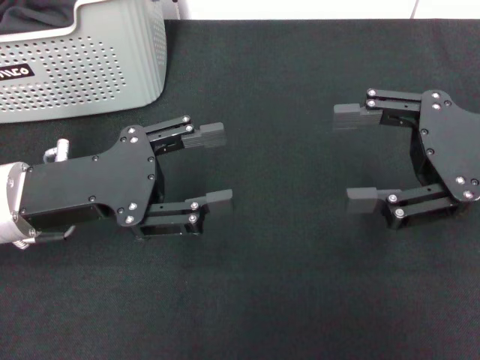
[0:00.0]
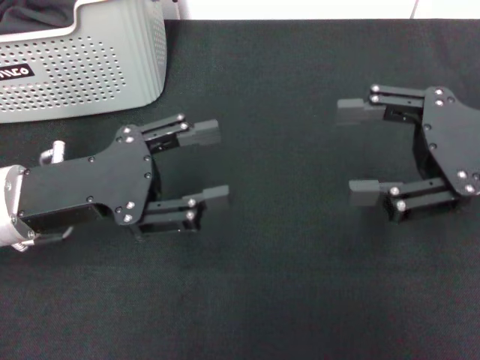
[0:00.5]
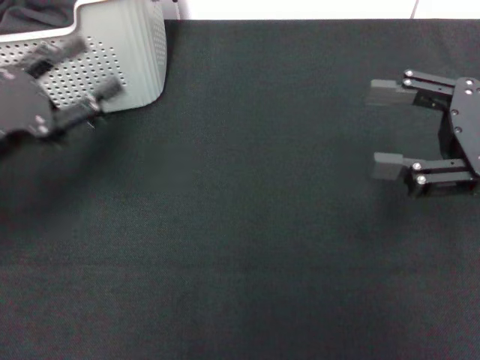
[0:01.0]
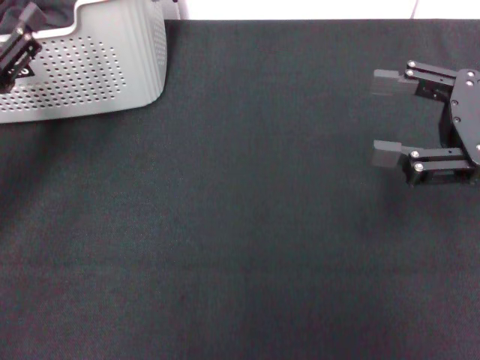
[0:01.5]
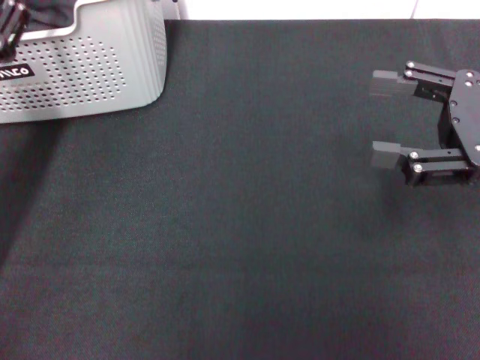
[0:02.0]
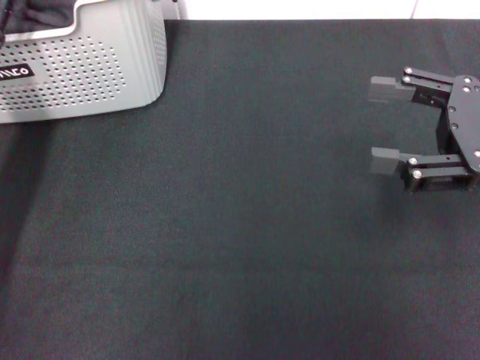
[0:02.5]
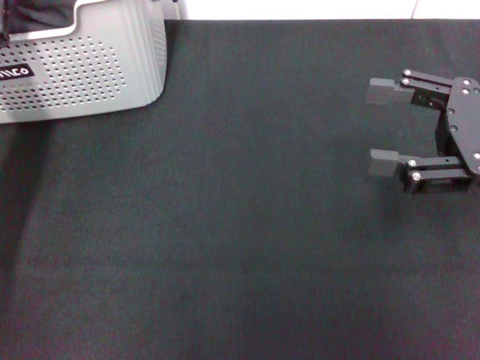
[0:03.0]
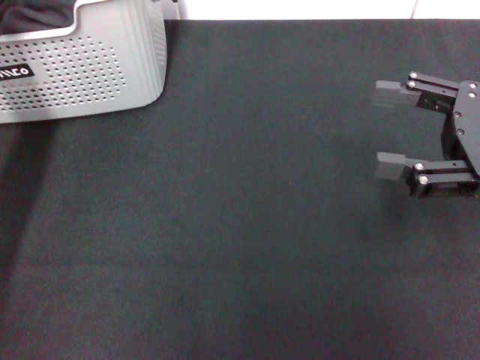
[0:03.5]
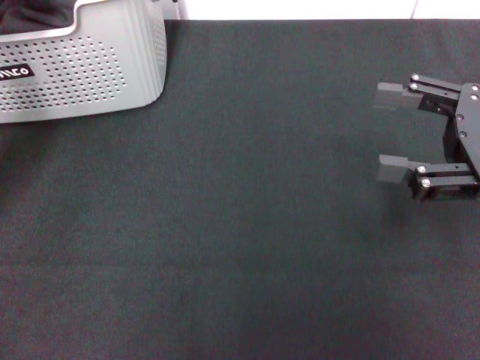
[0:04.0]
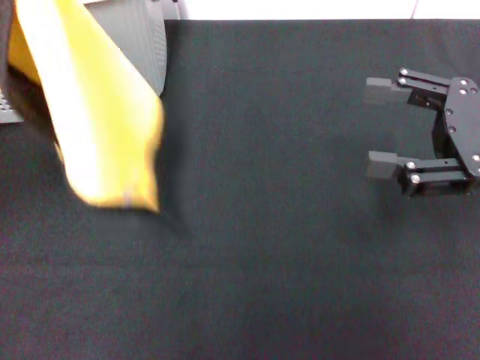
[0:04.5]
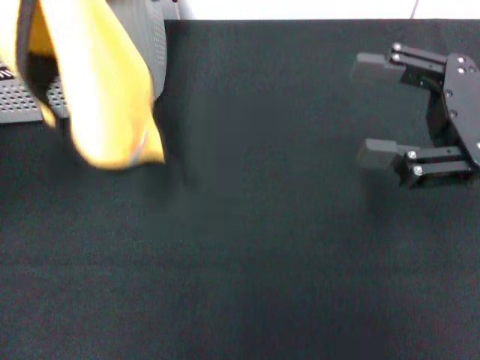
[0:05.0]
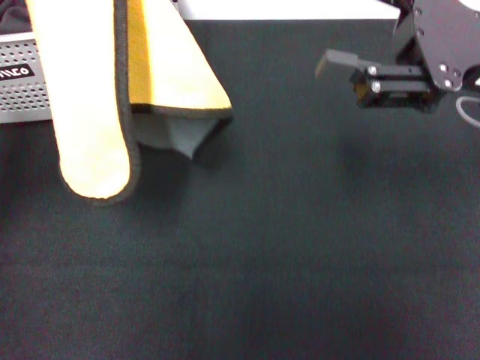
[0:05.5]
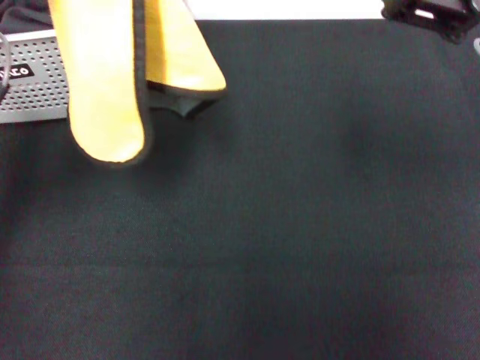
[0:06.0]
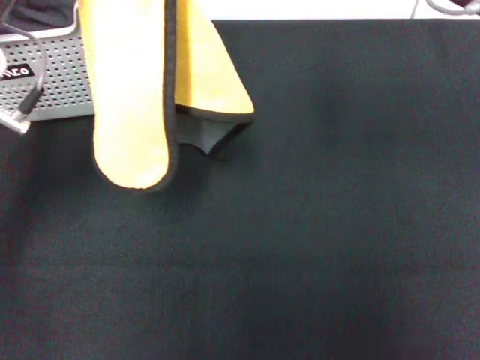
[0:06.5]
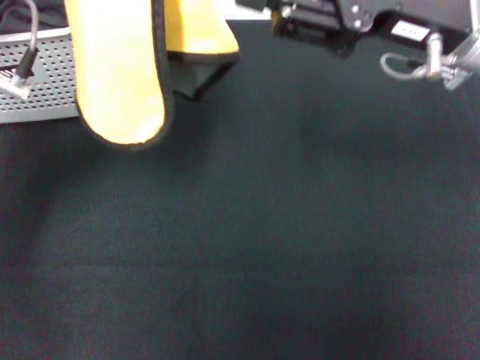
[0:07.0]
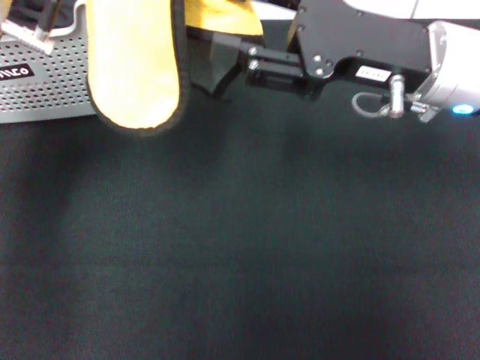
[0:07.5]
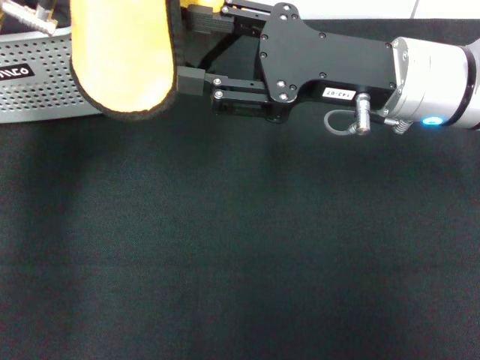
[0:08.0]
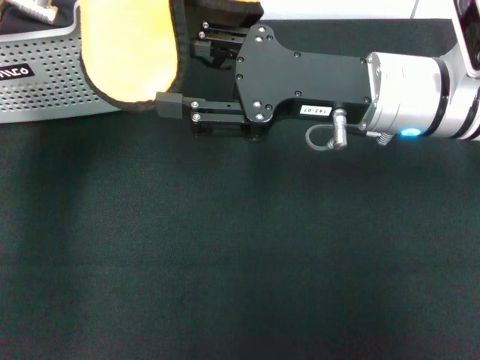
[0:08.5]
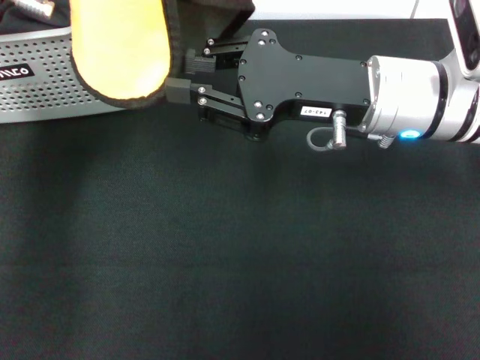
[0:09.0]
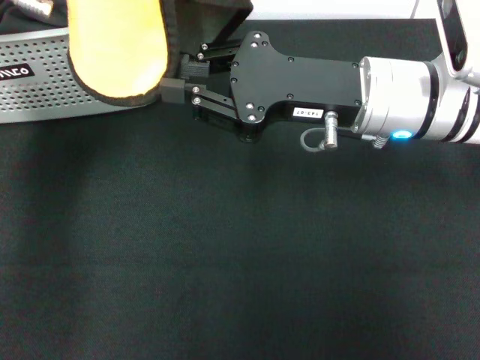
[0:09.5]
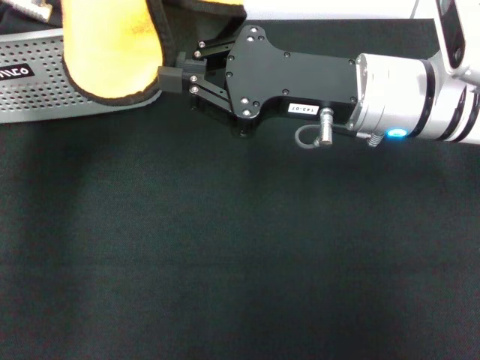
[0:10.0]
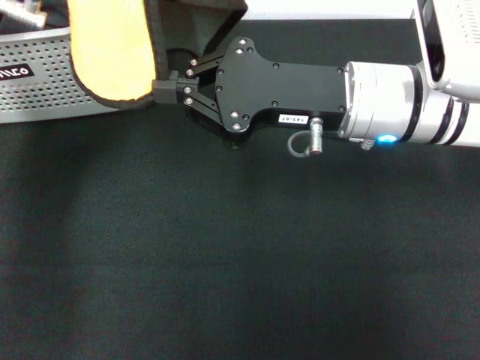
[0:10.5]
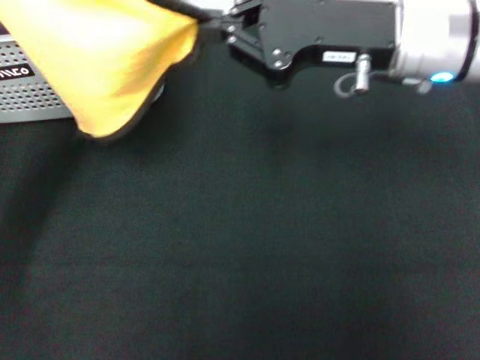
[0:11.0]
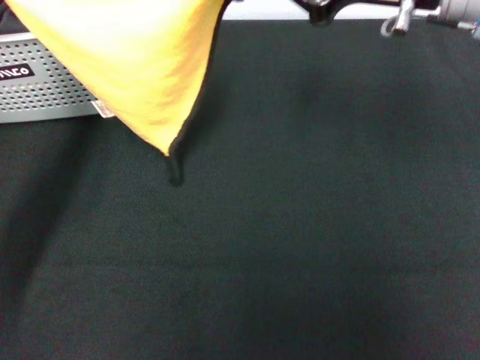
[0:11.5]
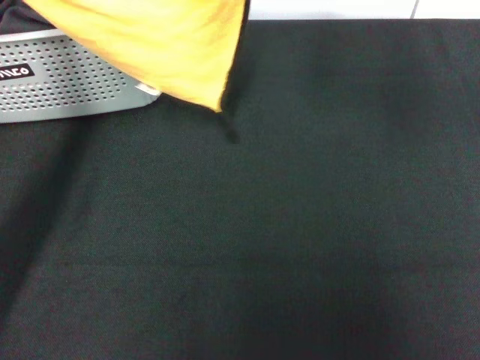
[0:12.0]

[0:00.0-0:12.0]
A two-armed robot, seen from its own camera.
Task of the whole recording: pick up the towel from the storage box and lay it flat on the black tablecloth.
Step, 0:00.0 to 0:03.5: Pick up a towel with the left gripper.
Step, 0:04.0 to 0:10.5: Spread the towel flat with the left gripper.
0:00.0 to 0:02.0: The left gripper goes some 5 cm to the left.
0:02.0 to 0:04.0: The left gripper moves upward, roughly 5 cm, and closes up.
0:04.0 to 0:06.0: The left gripper is displaced to the right by about 5 cm, while the right gripper is displaced upward and to the left by some 10 cm.
0:06.0 to 0:08.0: The left gripper shifts some 5 cm to the right. Meanwhile the right gripper moves to the left and downward, some 10 cm.
0:08.0 to 0:10.0: The right gripper closes its fingers.
0:10.0 to 0:12.0: The right gripper travels upward and to the right by about 15 cm. Meanwhile the left gripper travels downward, backward and to the left by about 15 cm.

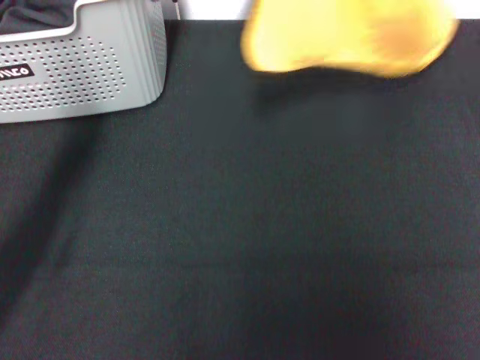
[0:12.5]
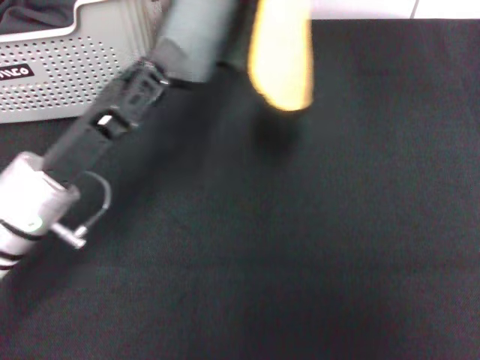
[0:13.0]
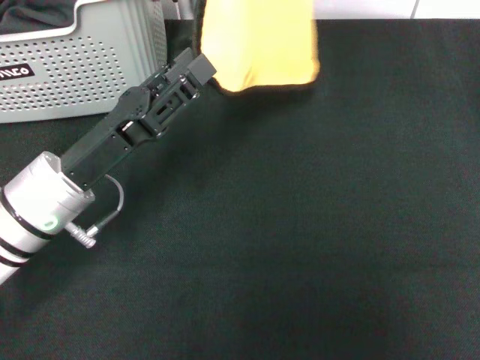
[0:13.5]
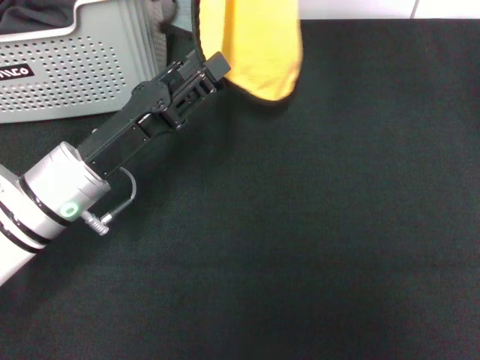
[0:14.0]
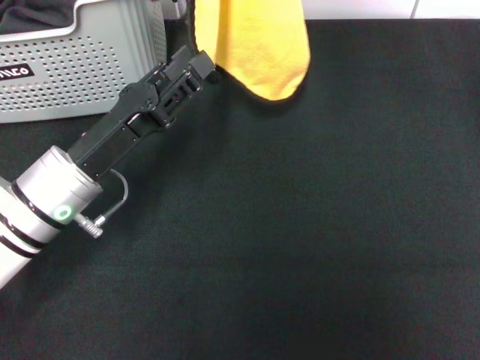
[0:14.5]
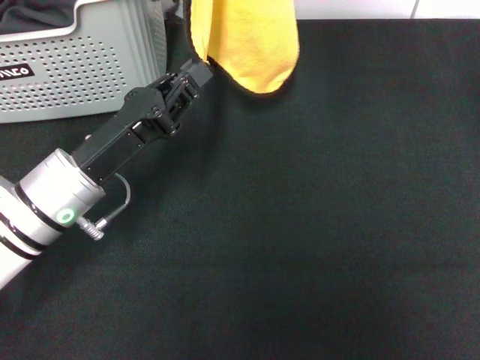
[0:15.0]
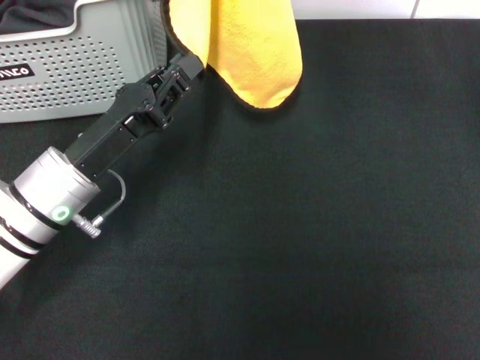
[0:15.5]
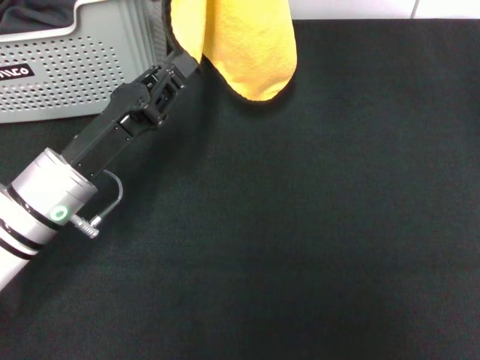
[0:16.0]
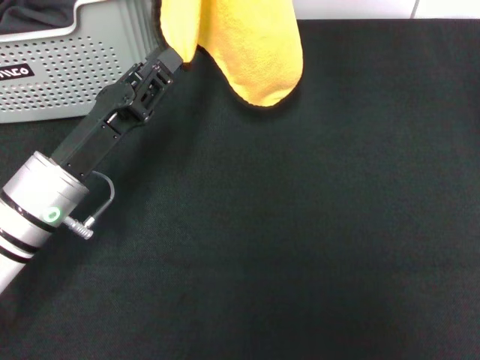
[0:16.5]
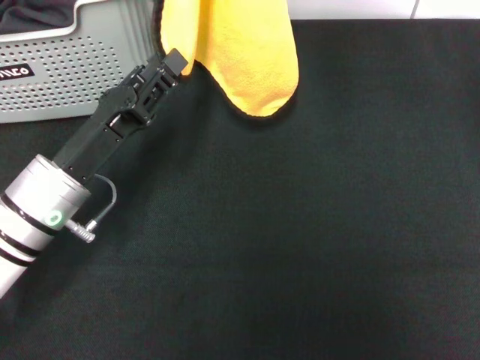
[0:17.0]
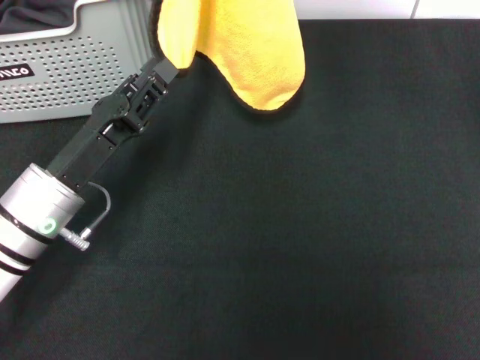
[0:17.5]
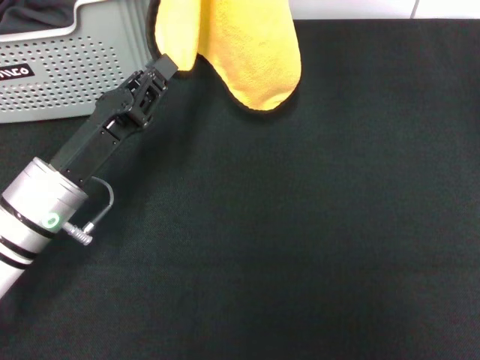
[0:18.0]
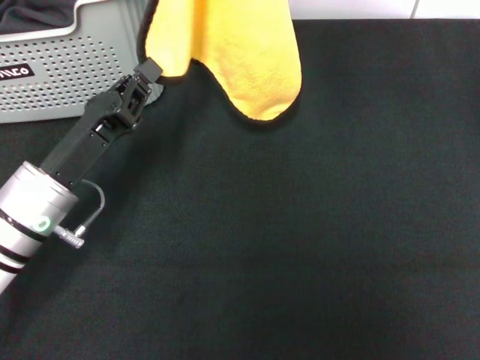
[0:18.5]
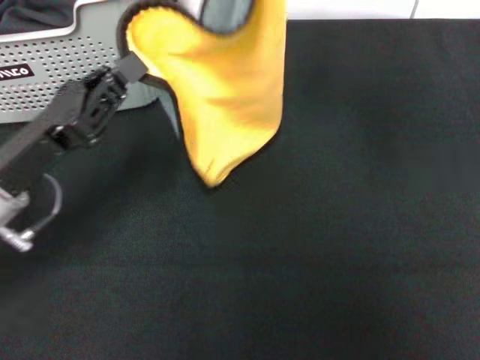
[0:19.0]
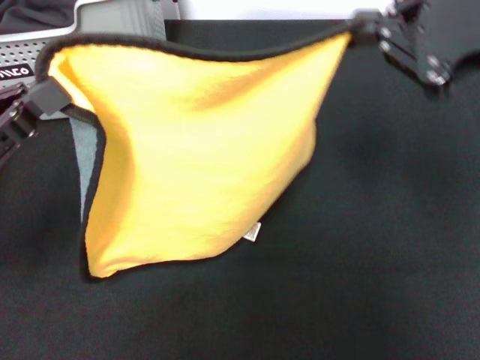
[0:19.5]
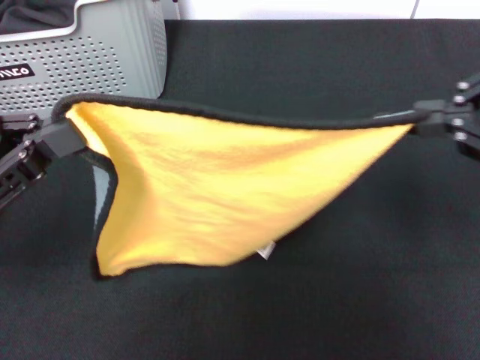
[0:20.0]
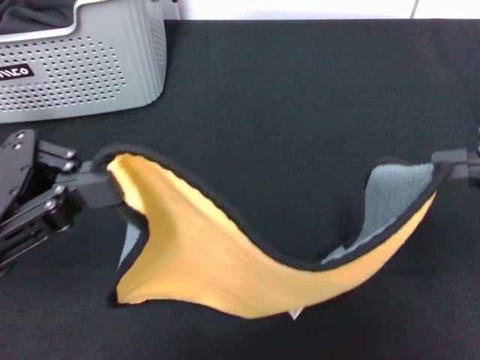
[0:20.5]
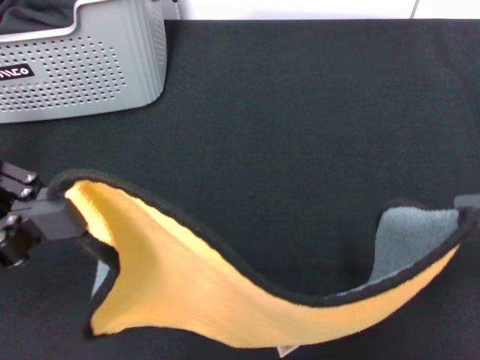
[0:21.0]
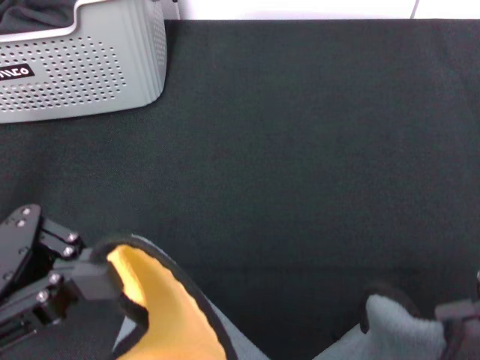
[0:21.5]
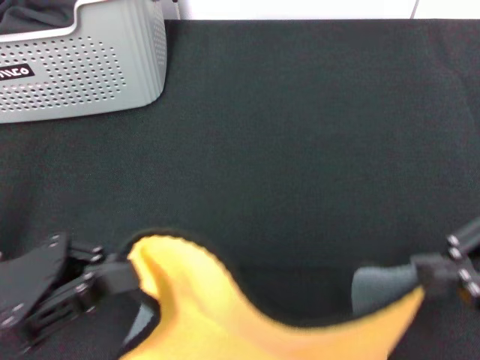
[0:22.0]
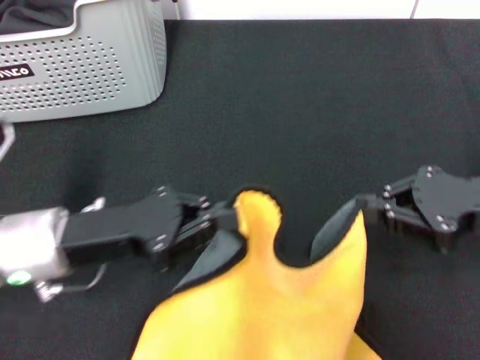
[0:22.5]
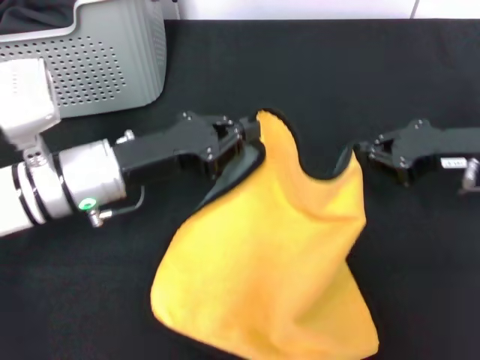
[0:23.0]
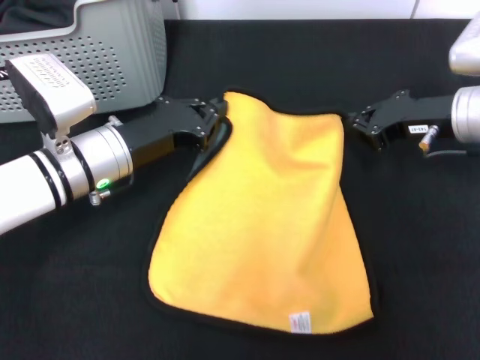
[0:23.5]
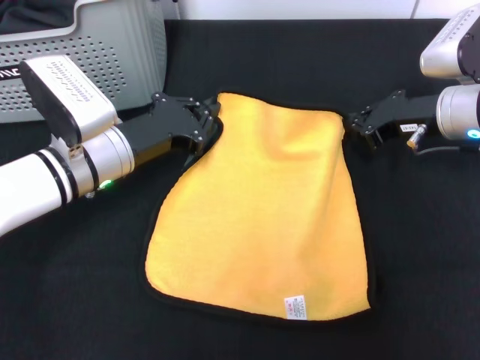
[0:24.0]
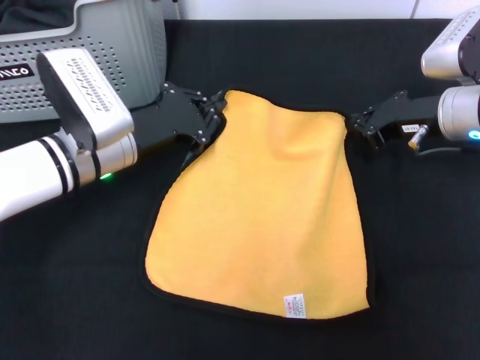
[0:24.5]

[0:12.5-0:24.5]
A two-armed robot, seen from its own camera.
Task of the whole recording: pick up the towel from the storage box and lay it flat on the black tablecloth.
0:12.5 to 0:14.5: The right gripper shifts roughly 5 cm to the left, while the left gripper is displaced to the right and forward by about 10 cm.
0:14.5 to 0:16.5: The left gripper closes, then opens again.
0:16.5 to 0:18.5: The left gripper closes up.
0:18.5 to 0:20.5: The left gripper goes some 15 cm upward, to the left and backward. The right gripper is displaced backward, to the right and downward by approximately 25 cm.
0:20.5 to 0:22.5: The right gripper shifts about 15 cm downward and forward, while the left gripper is displaced downward and to the right by some 10 cm.
0:22.5 to 0:24.5: Both grippers move forward, some 10 cm.

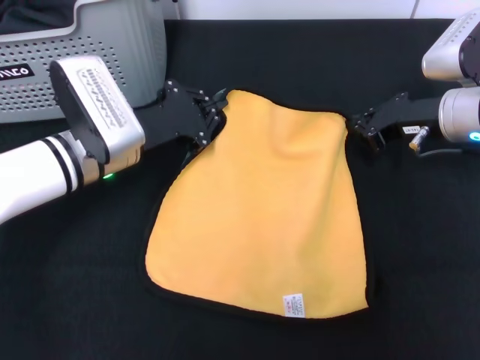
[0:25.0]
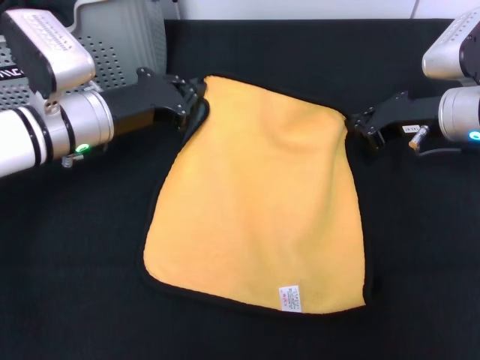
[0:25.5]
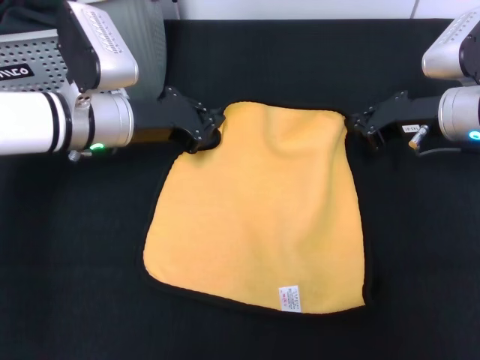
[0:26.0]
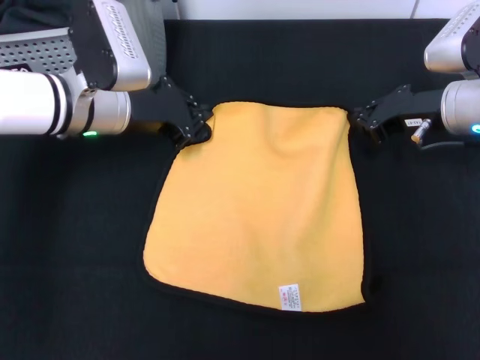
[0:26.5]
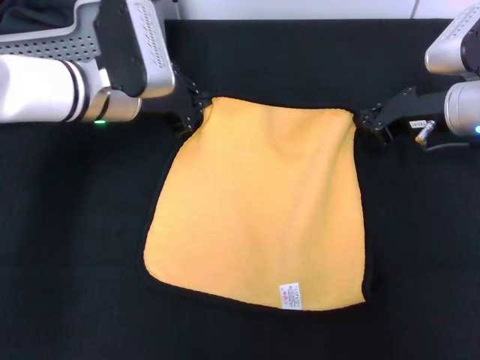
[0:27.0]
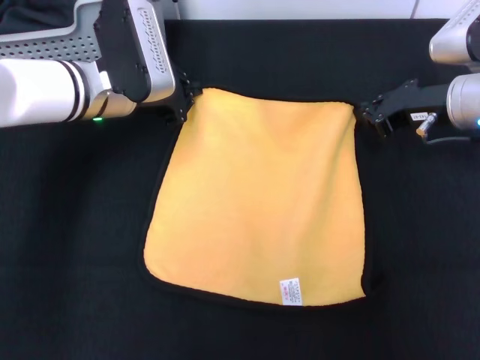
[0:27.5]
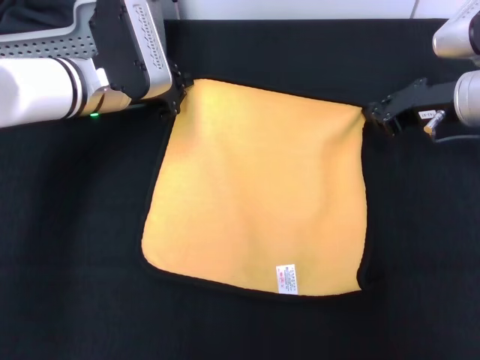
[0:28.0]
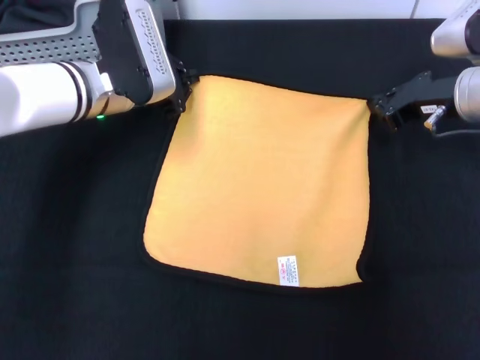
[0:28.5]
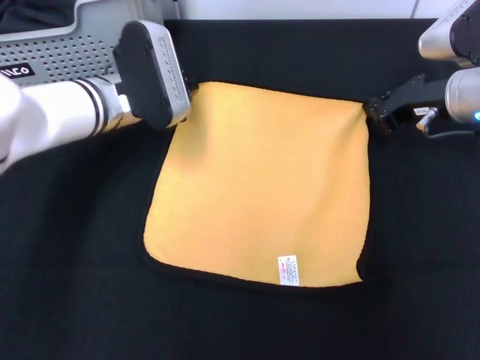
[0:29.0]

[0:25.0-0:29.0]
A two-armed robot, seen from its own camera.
Task of the whole recording: pick up the towel from the storage box and lay it flat on the black tablecloth.
0:25.0 to 0:27.0: The left gripper moves approximately 5 cm.
